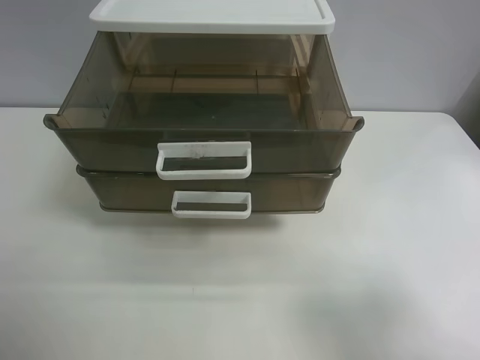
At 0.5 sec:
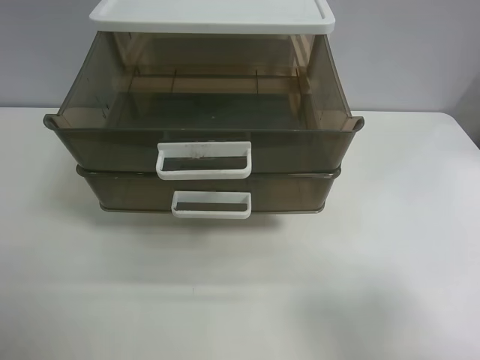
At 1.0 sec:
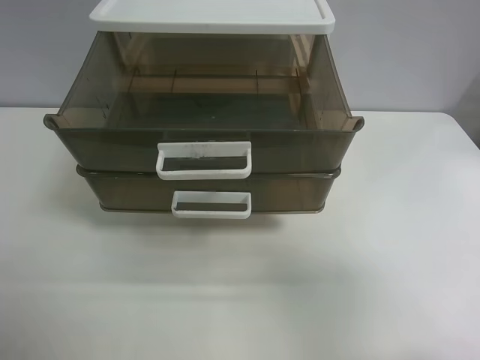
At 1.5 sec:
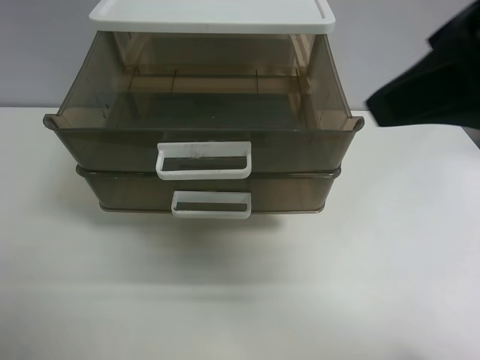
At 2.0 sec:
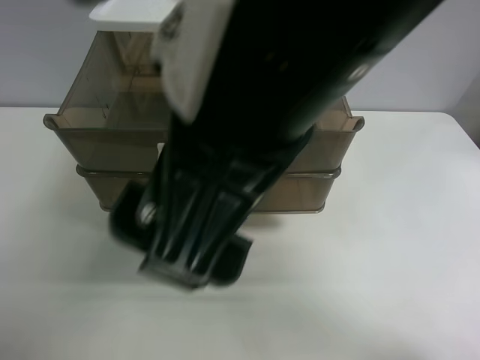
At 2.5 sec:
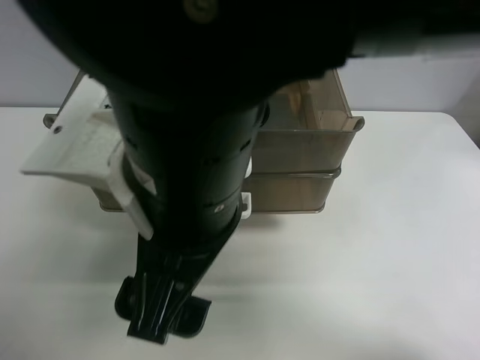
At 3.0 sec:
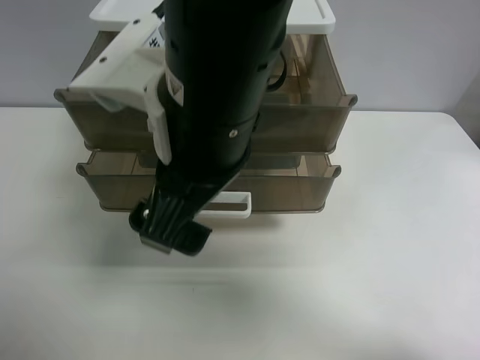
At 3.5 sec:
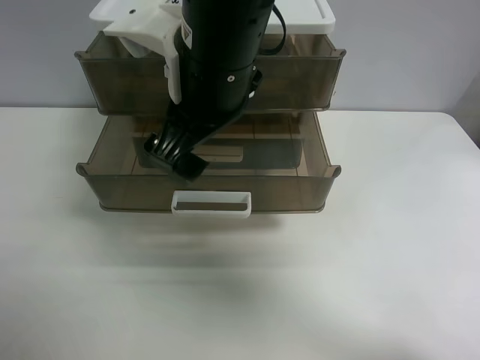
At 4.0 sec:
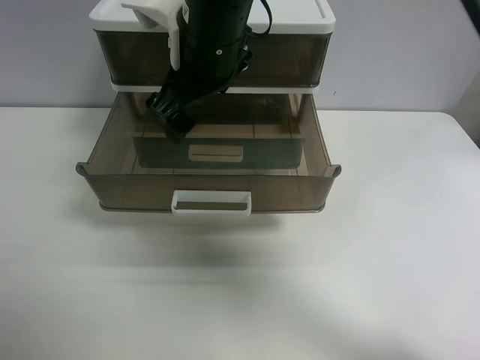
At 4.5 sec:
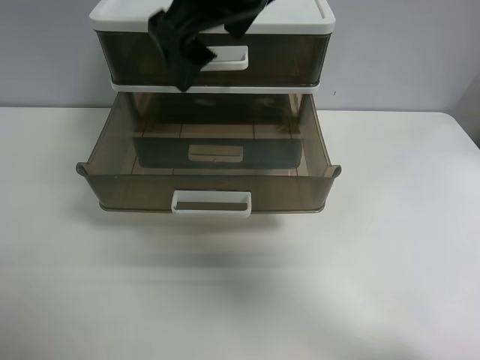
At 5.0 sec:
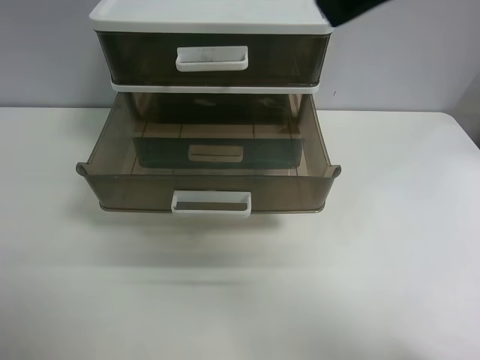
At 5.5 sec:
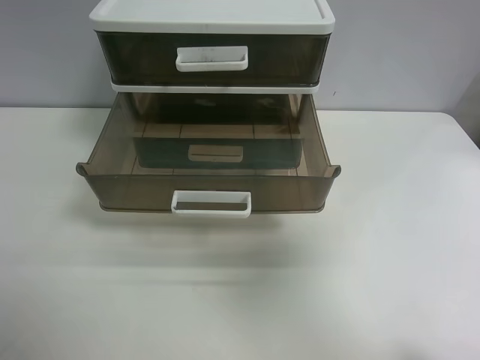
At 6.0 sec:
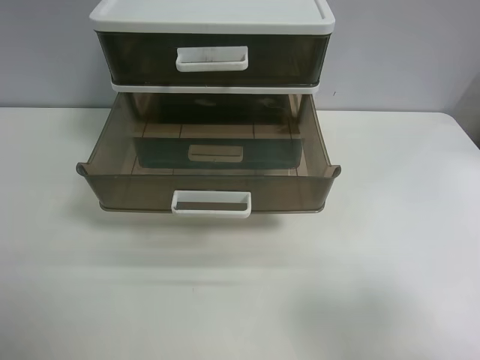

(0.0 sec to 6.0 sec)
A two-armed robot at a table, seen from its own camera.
Task of the whole recording: close the top drawer.
Step, 0.0 sec - 2.5 sec: Use the right gripper to touch the topmost layer of the storage cabinet.
Step, 3.0 sec - 4.0 sec: Push the top drawer closed.
0.0 sec - 2.0 sec: The right gripper goes some 30 cm to the left.
2.0 sec - 4.0 sec: The right gripper travels forward by approximately 20 cm.
4.0 sec - 6.0 sec: The right gripper moves to the right and backward, roughly 40 cm.
